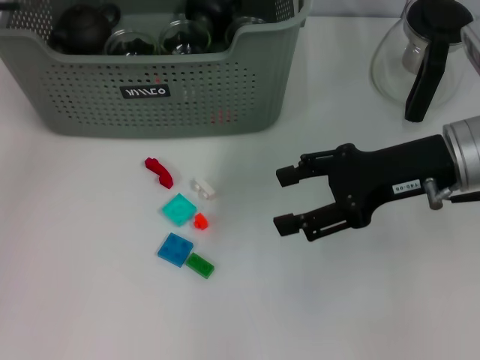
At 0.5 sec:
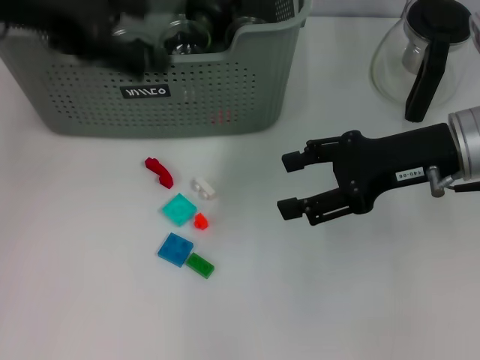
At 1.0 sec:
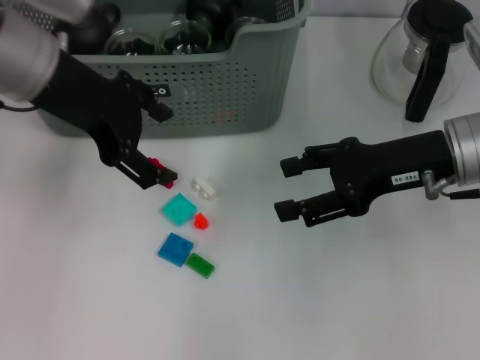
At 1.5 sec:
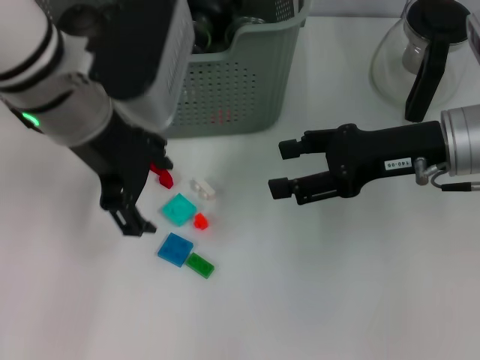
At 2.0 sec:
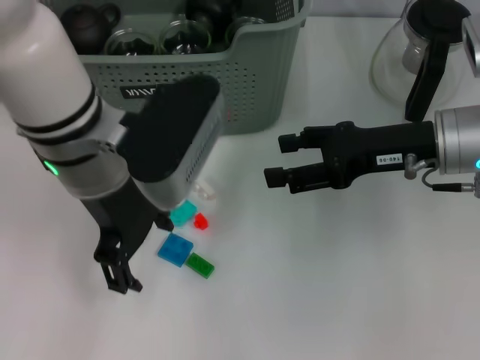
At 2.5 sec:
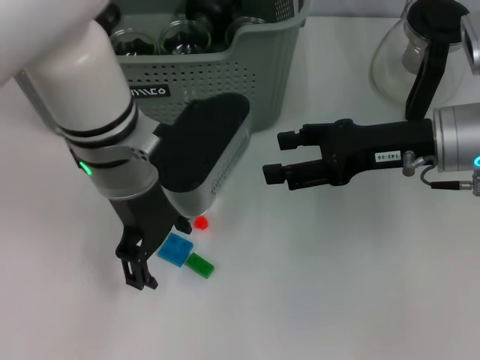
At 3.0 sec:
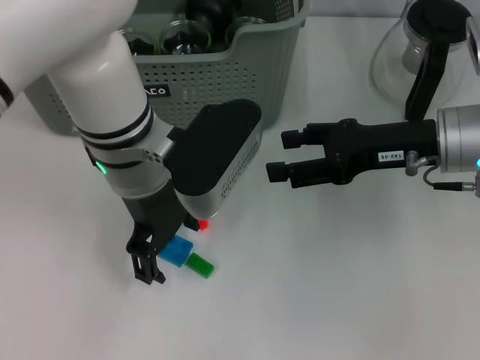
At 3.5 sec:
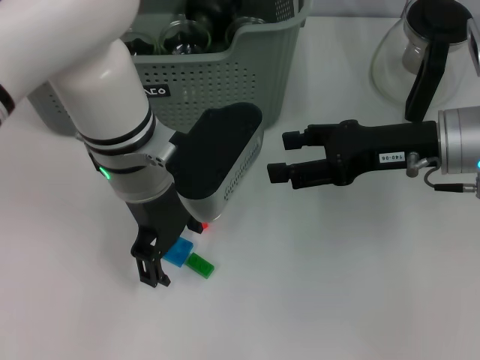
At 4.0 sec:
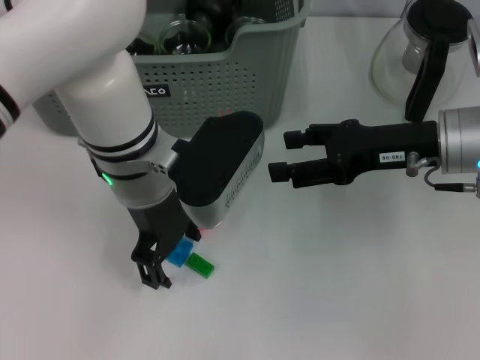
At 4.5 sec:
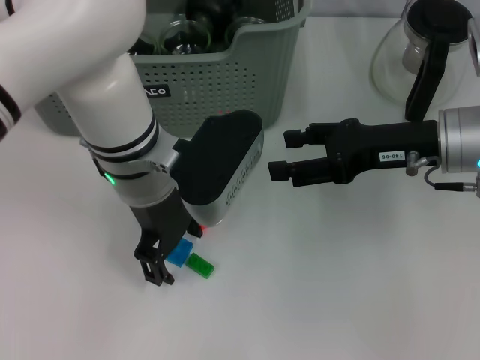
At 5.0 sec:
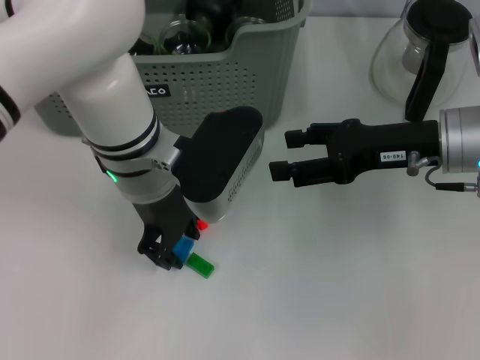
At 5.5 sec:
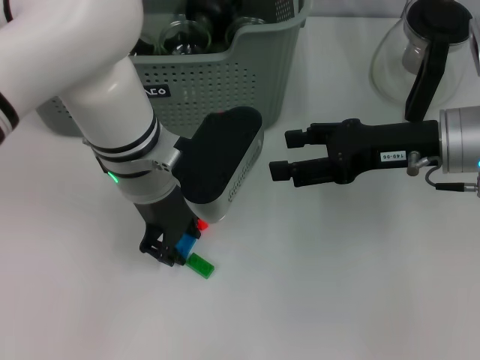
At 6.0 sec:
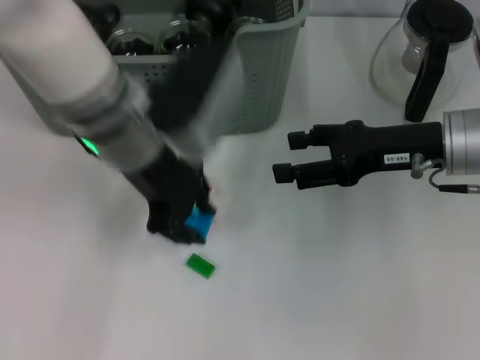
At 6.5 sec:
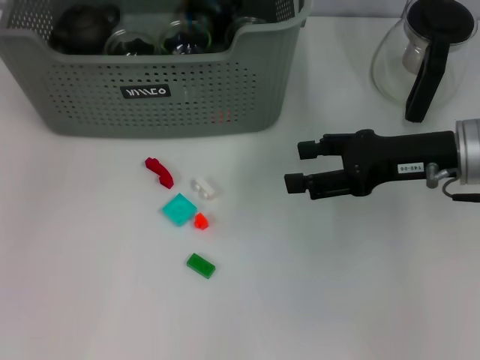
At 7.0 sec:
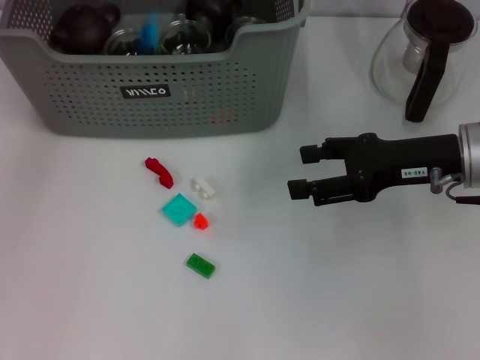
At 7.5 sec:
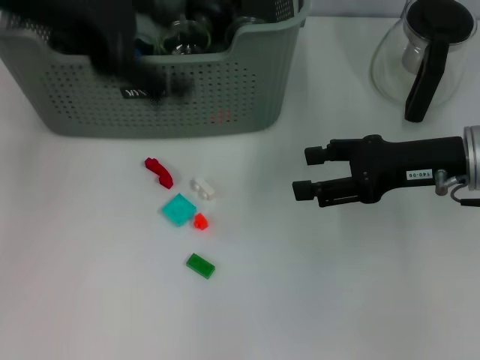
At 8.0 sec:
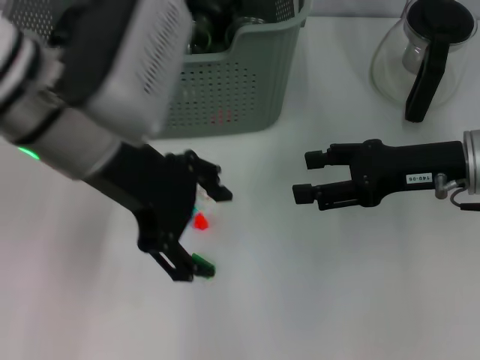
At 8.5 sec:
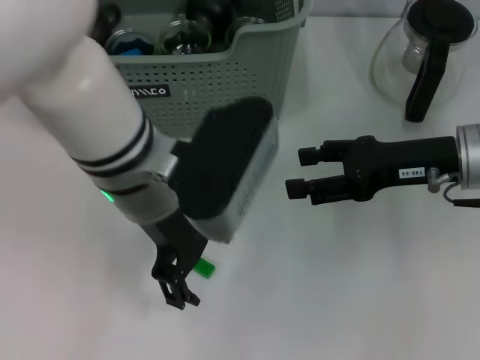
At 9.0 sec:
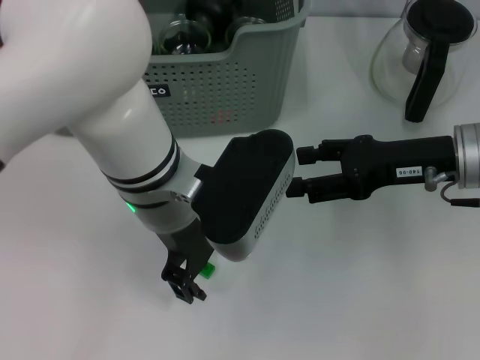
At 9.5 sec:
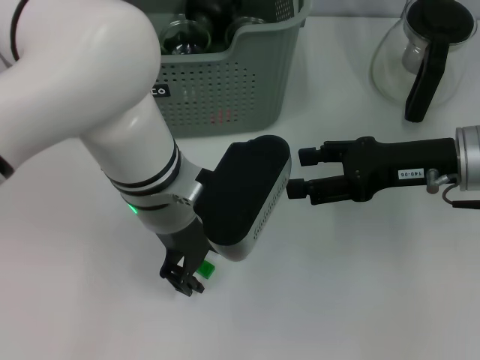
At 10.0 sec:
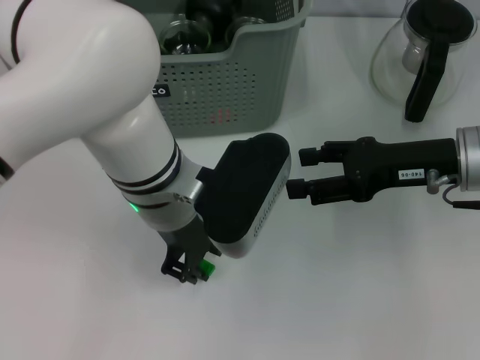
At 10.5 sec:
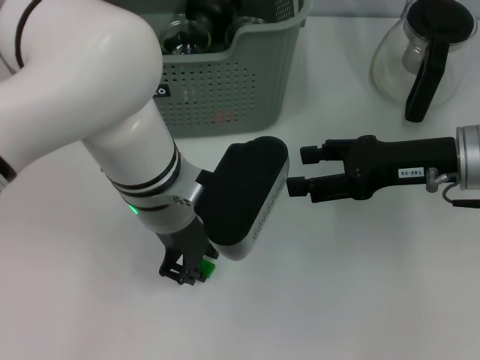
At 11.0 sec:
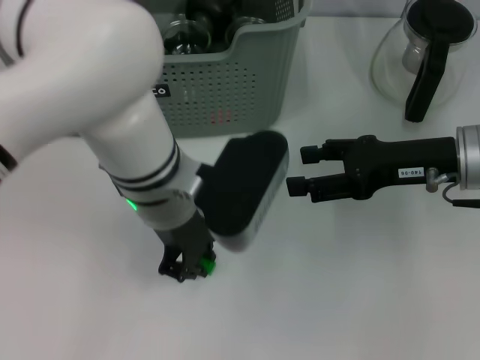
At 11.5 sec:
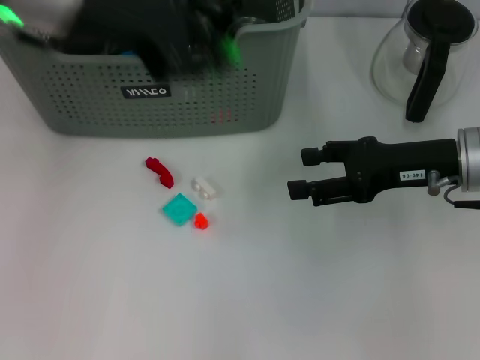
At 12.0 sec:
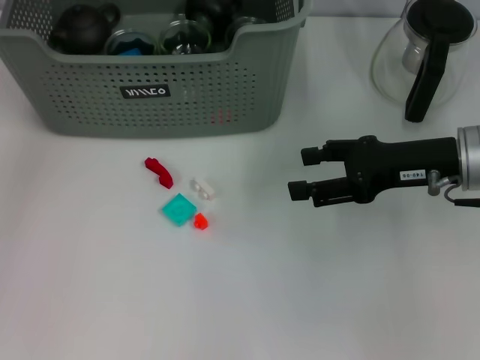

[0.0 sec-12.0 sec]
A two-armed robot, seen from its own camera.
Task of the whole recording: pick up the teacup on the table and place it into the storage bin, pick up the block on the table and place it into the storage bin.
Step, 0.5 sec to 5.0 sec: Grasp the dark blue block with left gripper.
Step, 5.5 sec to 7.0 sec: Place the dark blue block in the storage box with left gripper.
Step, 7.5 sec to 10.5 sec: Grasp the green block with left gripper.
0.0 sec to 2.0 sec: The left gripper moves to the right and backward, about 15 cm, and opens its fingers.
2.0 sec to 4.0 sec: The left gripper changes place by about 5 cm.
4.0 sec to 6.0 sec: The left gripper closes.
6.0 sec to 8.0 sec: The left gripper is displaced upward by approximately 5 cm, goes forward and returns, approximately 10 cm each way, and opens its fingers.
8.0 sec to 10.0 sec: The left gripper travels downward and to the right by roughly 10 cm, and closes its fingers.
10.0 sec to 12.0 sec: The left gripper goes about 25 cm to the left, upward and forward.

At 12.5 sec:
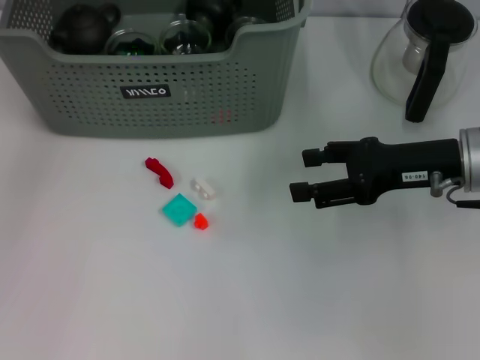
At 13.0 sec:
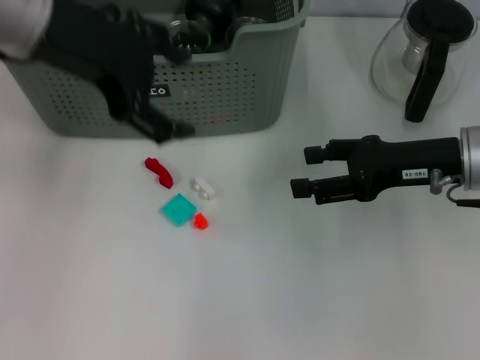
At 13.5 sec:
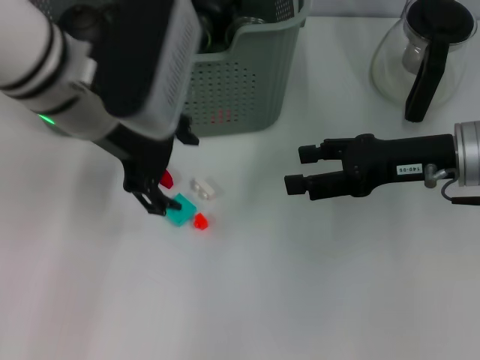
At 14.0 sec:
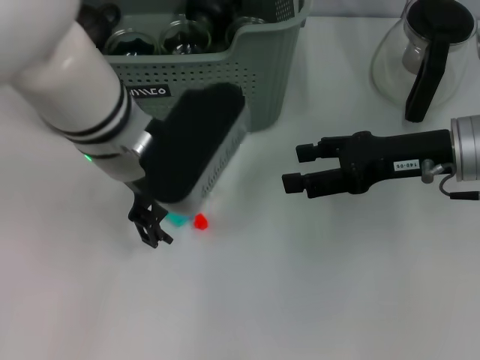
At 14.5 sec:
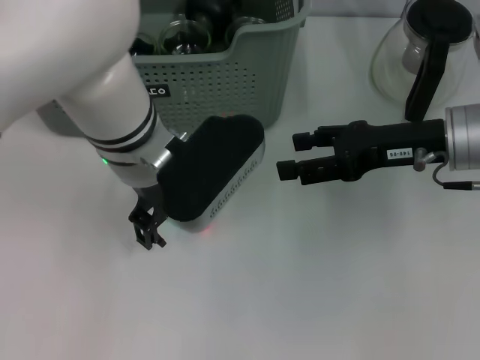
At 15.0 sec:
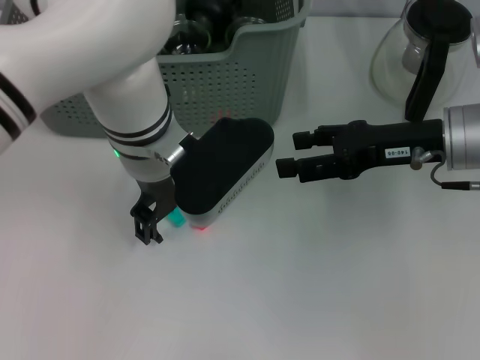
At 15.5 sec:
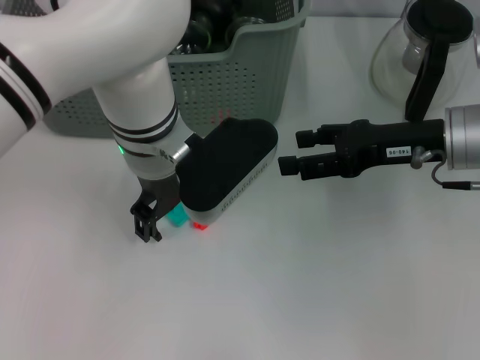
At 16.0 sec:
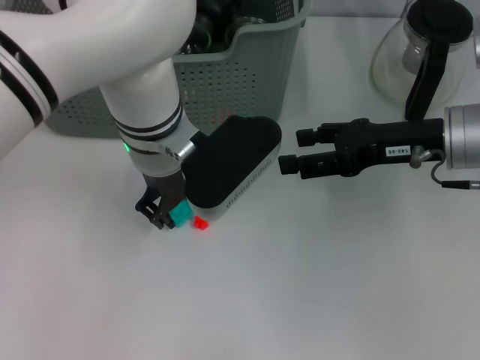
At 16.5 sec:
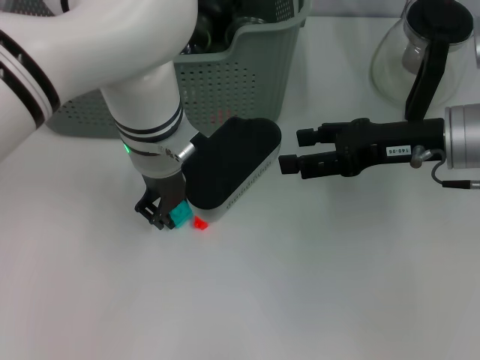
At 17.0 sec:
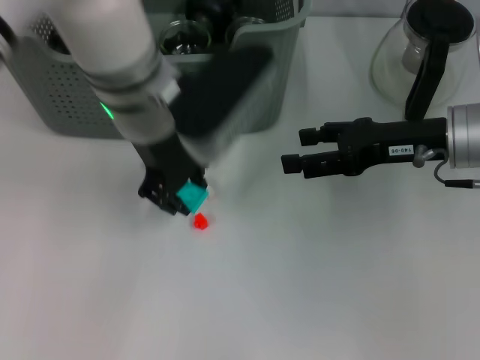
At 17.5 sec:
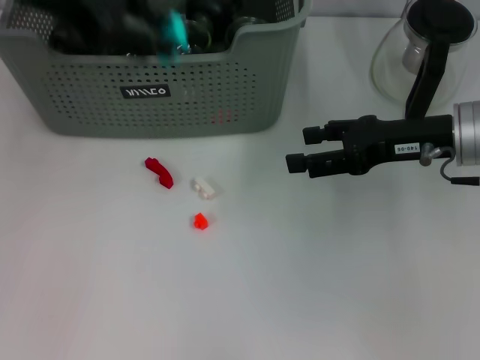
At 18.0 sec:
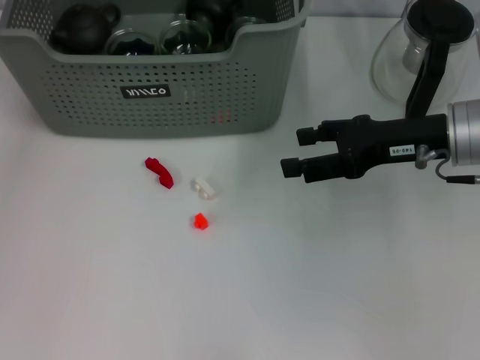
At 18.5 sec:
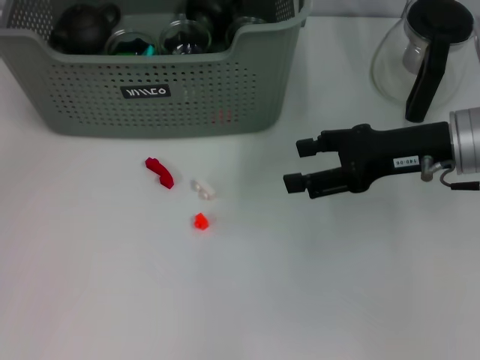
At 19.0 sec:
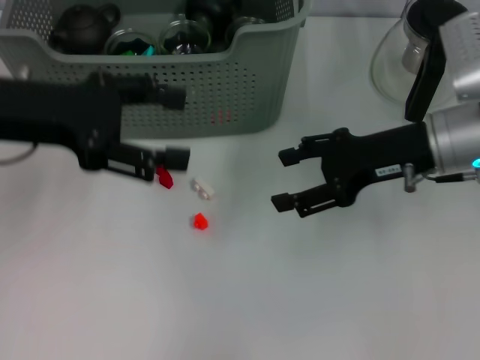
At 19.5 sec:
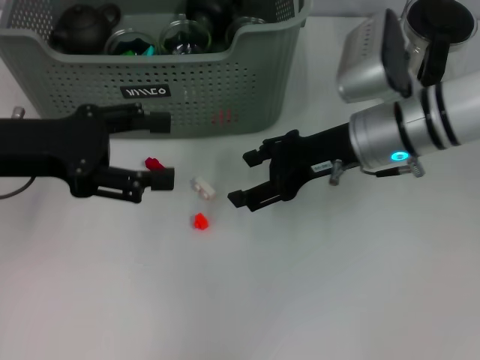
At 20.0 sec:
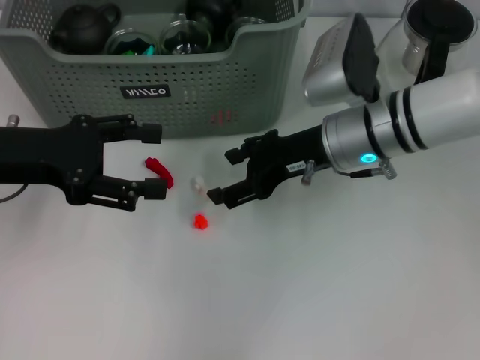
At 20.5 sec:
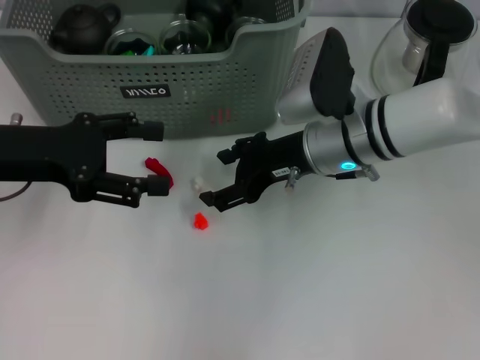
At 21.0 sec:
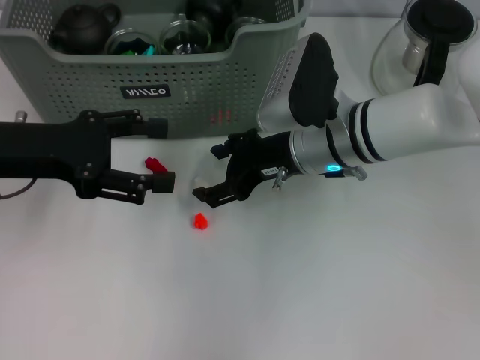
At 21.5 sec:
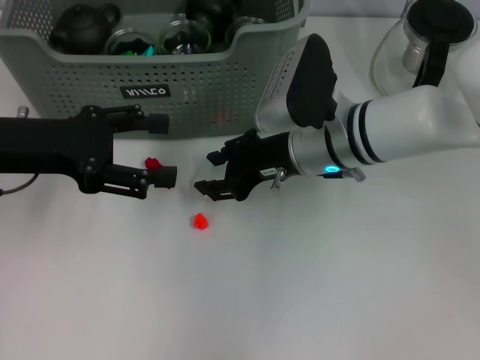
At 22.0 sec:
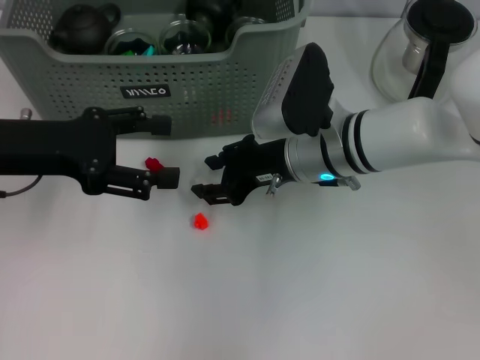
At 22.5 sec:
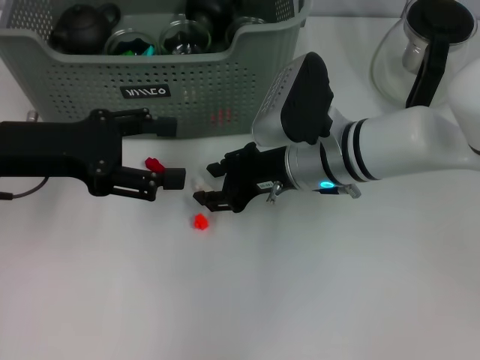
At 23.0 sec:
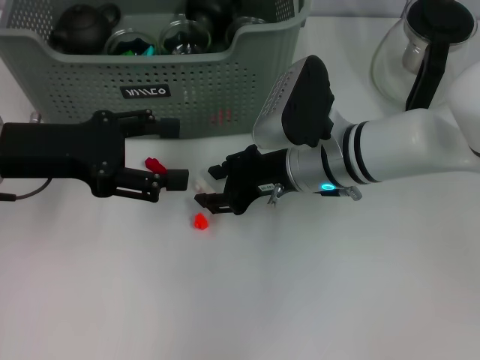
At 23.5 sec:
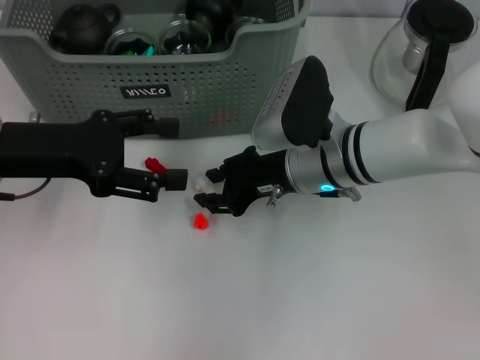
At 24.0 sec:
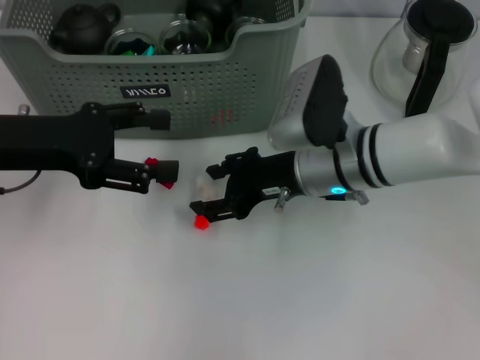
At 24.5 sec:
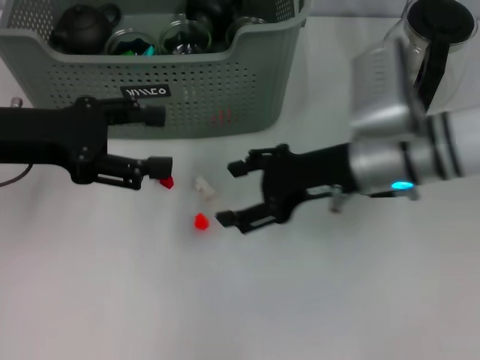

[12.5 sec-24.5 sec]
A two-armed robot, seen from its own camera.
Task of the whole recording: pick up the teacup on the table and place it into the storage bin, pick up the block on the table and place it into the storage bin.
Step, 13.0 sec to 16.0 sec: Grasp the light blue block with left gripper.
Step, 16.5 sec to 18.0 sec: Place the light blue block in the storage box with left gripper.
12.5 sec to 14.5 sec: The left gripper moves to the right, downward and backward, roughly 25 cm, and opens its fingers.
14.5 sec to 16.5 sec: The left gripper closes.
16.5 sec to 18.5 sec: The left gripper shifts some 25 cm to the left and upward.
18.5 sec to 20.5 sec: The right gripper heads to the left, covering roughly 10 cm, while the left gripper moves downward and backward, some 20 cm.
20.5 sec to 22.5 sec: The right gripper closes.
22.5 sec to 24.5 sec: The right gripper shifts about 5 cm to the right, and opens up.

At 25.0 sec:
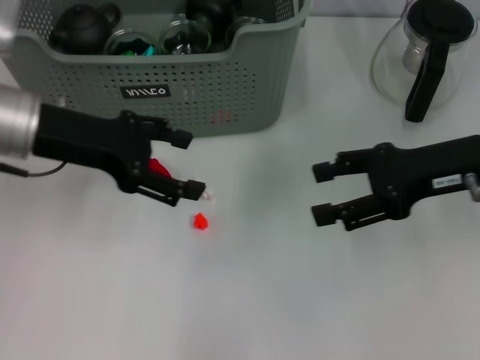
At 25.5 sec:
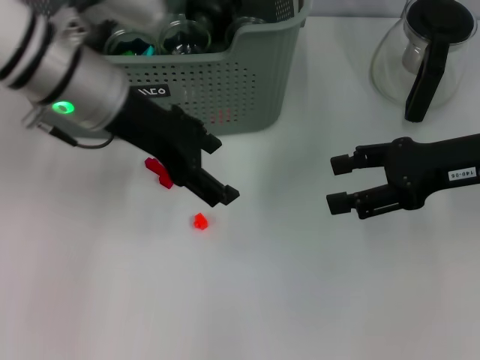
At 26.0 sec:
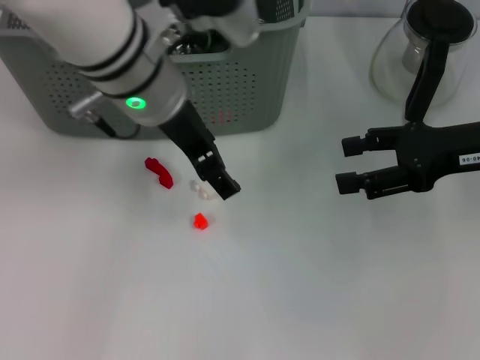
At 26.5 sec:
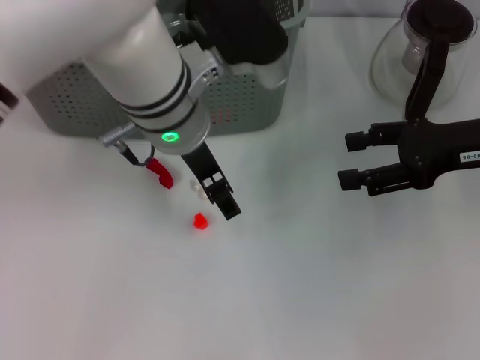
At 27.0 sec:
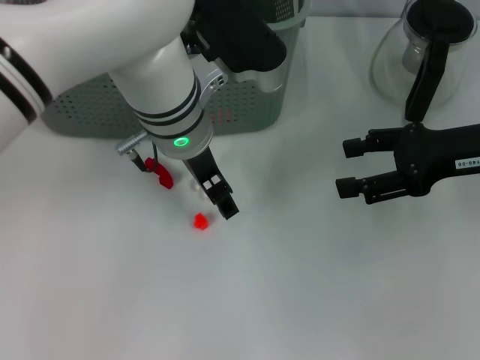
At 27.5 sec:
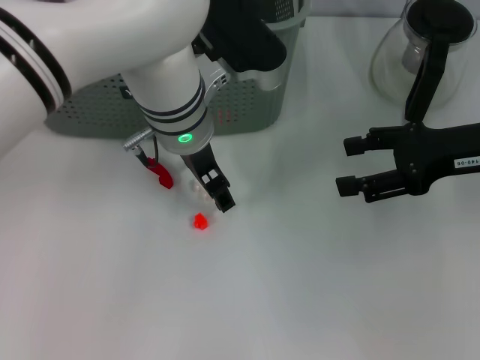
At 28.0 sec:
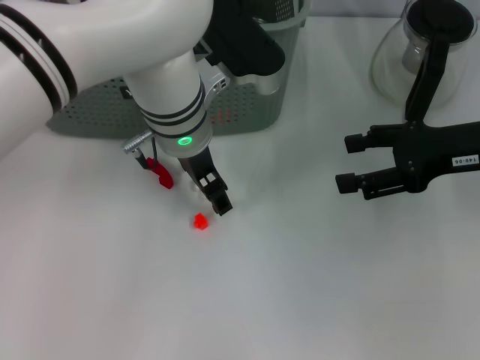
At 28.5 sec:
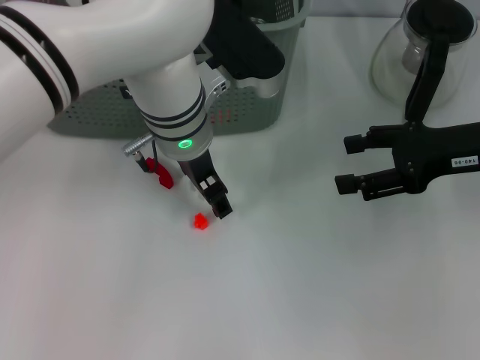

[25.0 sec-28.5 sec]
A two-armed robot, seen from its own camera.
Task of the whole recording: pick up the teacup on the table and place it into the storage bin, pick up the block on the table and place it into the storage bin.
25.0 sec to 27.0 sec: The left gripper shifts roughly 15 cm to the right.
27.0 sec to 28.5 sec: There are only small adjustments of the grippers.
